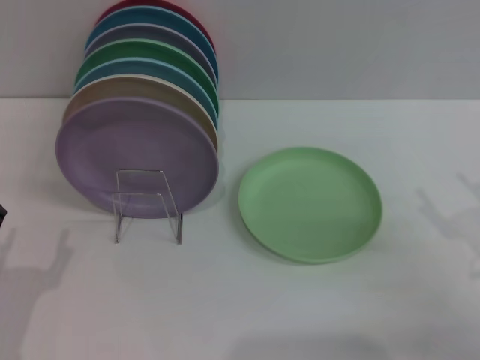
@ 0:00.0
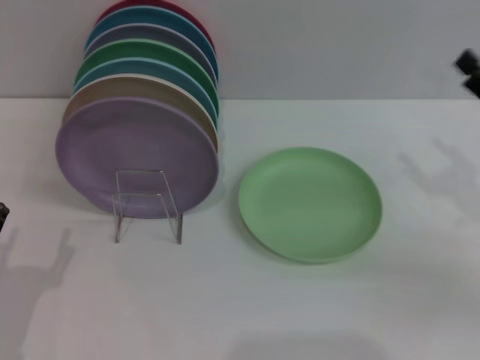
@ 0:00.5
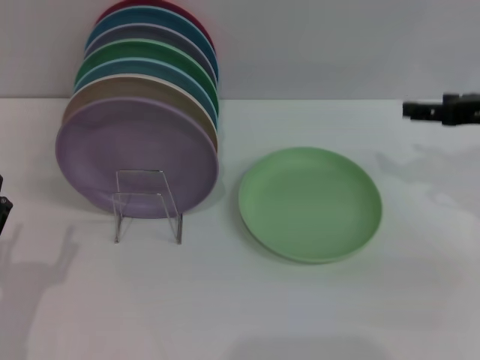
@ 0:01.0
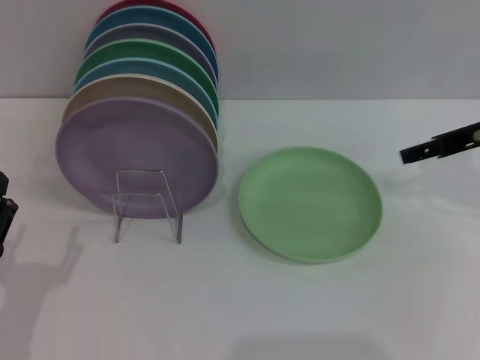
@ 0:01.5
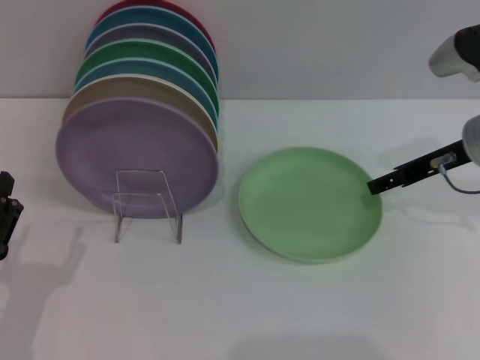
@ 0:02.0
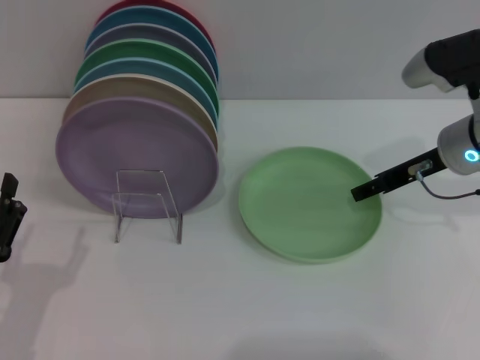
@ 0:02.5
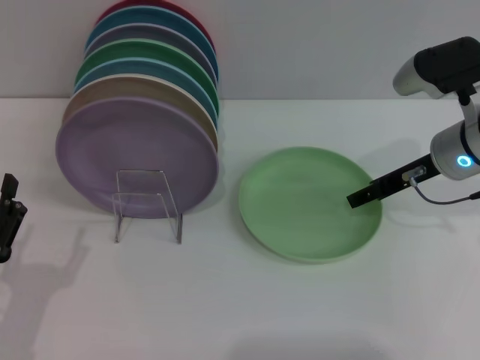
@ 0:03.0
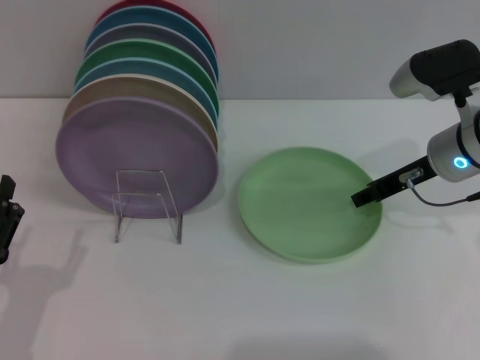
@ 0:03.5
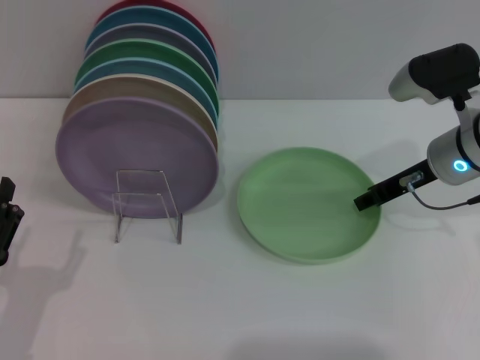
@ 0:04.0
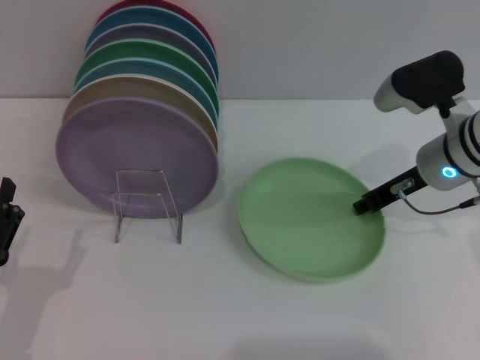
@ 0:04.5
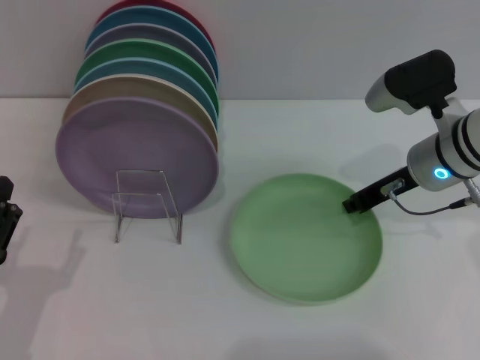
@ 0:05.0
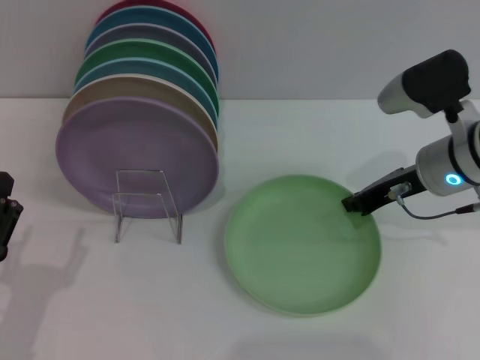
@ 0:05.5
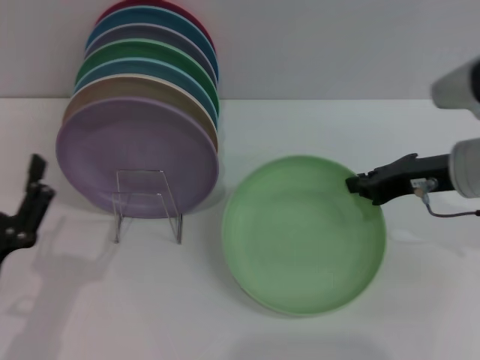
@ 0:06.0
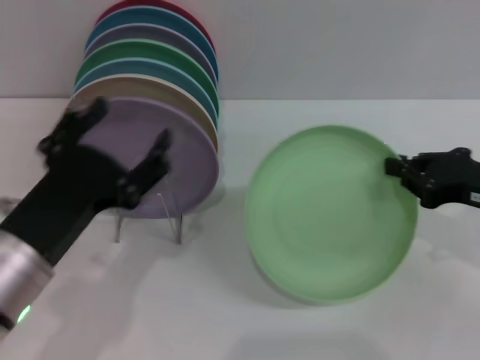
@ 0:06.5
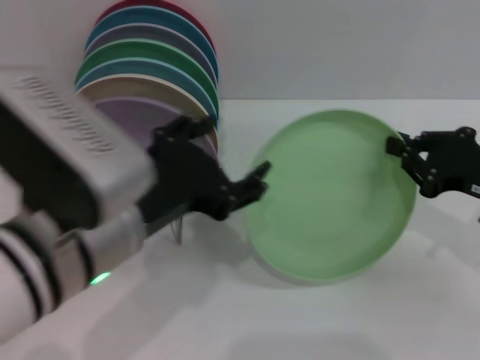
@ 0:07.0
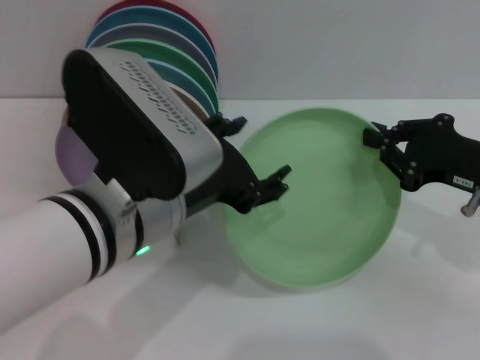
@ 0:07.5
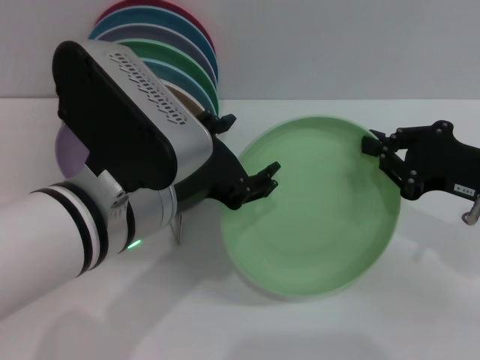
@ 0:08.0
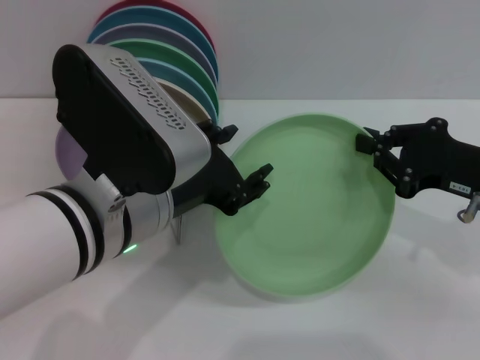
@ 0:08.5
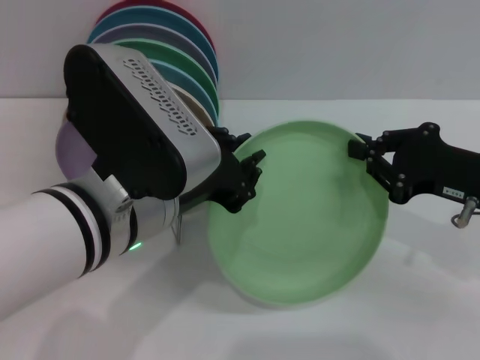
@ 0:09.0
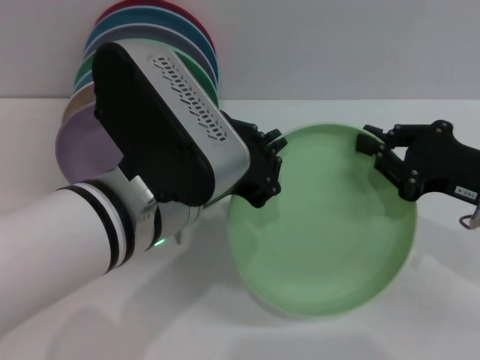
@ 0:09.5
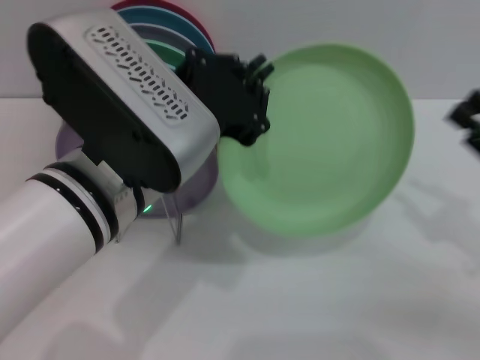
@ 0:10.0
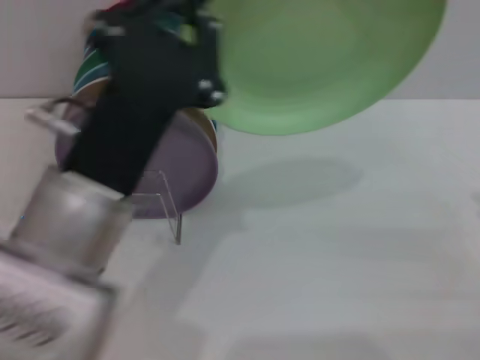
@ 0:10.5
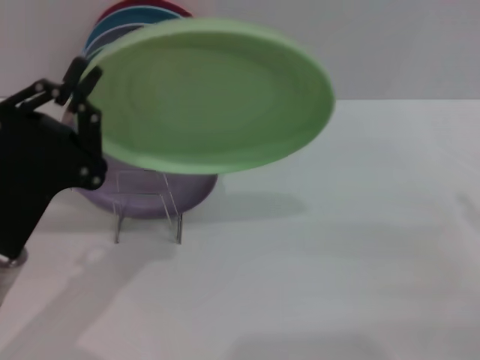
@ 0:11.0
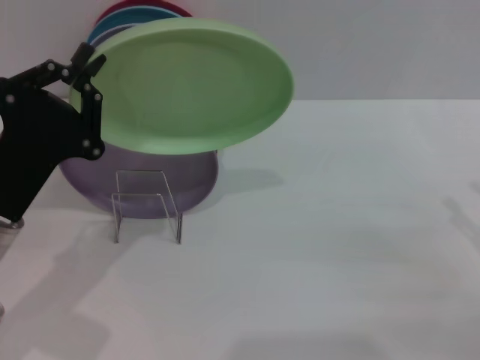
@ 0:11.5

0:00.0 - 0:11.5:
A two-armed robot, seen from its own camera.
Task of the whole recording: Grip the plate with one hand, pass it to the other, then set it on the shelf.
Step, 0:00.0 - 0:06.0: Pick up the plate with the right gripper.
Step, 0:06.5 - 0:09.5: Pass the plate from the right gripper to the left gripper.
0:00.0 - 0:02.0: The right gripper shifts roughly 20 cm forward and upward.
0:02.0 - 0:04.0: The right gripper closes up.
0:04.0 - 0:06.0: The right gripper travels backward by approximately 5 cm, and closes up.
0:06.0 - 0:07.5: The right gripper shifts by approximately 5 cm. The left gripper moves to the right, upward and forward, approximately 20 cm.
0:07.5 - 0:09.5: The left gripper closes.
0:09.5 - 0:11.5: The right gripper shifts about 10 cm to the right and backward, and opens up; the left gripper moves to the left and downward, some 15 cm.

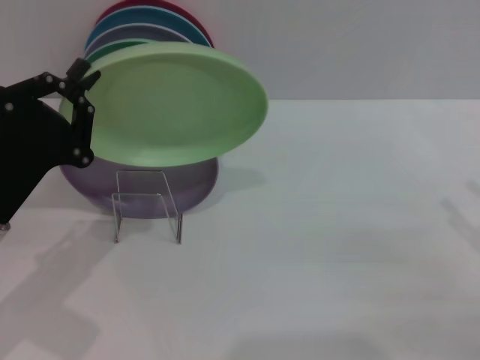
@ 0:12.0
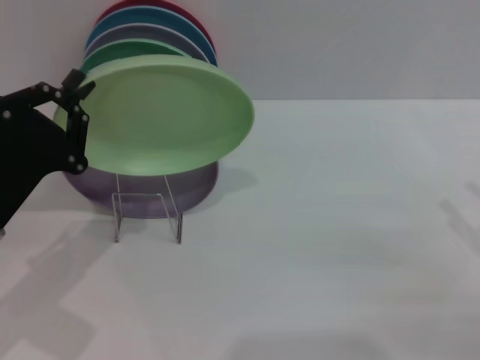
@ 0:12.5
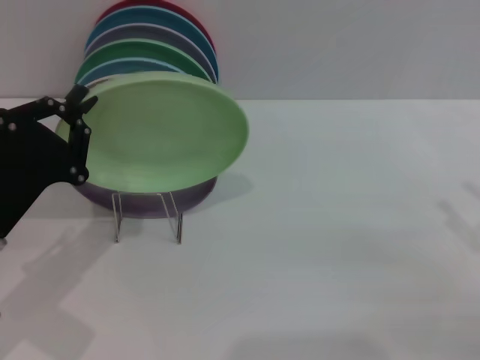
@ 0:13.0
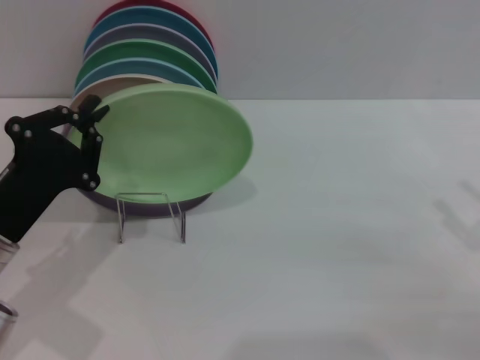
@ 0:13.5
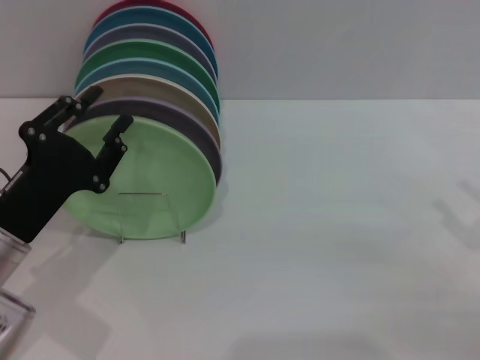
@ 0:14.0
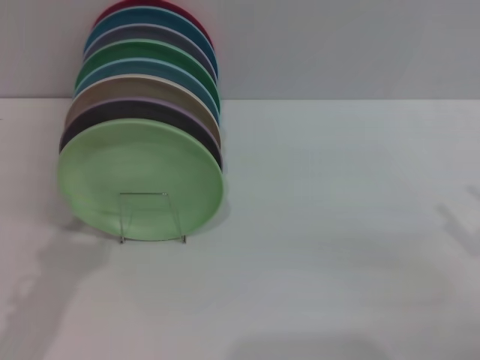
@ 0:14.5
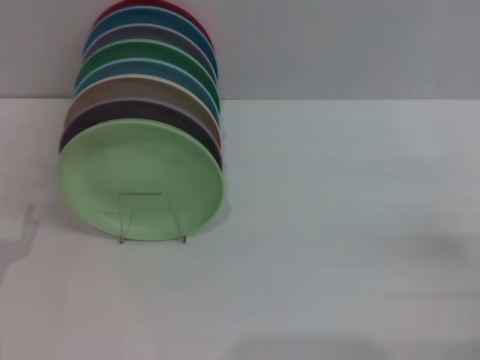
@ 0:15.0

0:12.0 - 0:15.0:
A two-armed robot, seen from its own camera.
Task of the whole recording: Grip the plate with one hand, pass it to the other, then set it on the shelf.
Step, 0:12.0 - 0:14.0: Place the plate on the shelf with the left gripper.
0:12.0 - 0:13.5: The grippers stay close to where they were, moving slightly.
0:13.5 - 0:15.0: The left gripper moves backward and to the left, some 10 cm, and opens up. The right gripper moves some 5 cm.

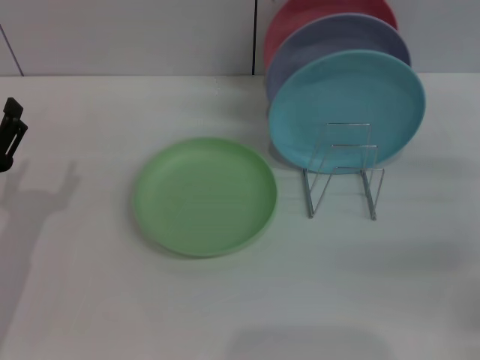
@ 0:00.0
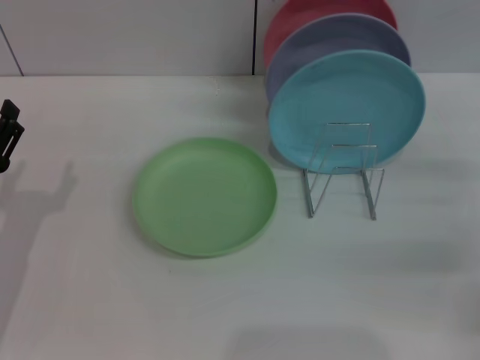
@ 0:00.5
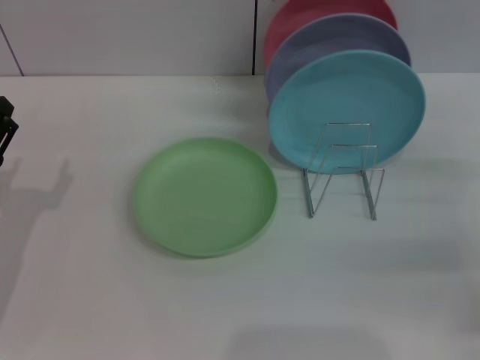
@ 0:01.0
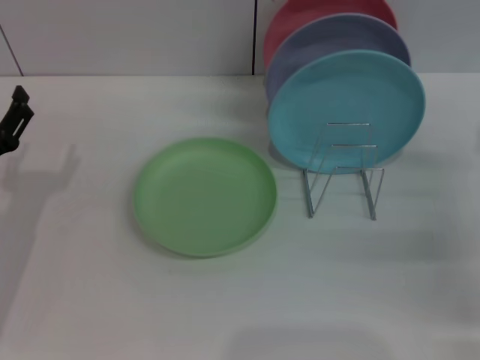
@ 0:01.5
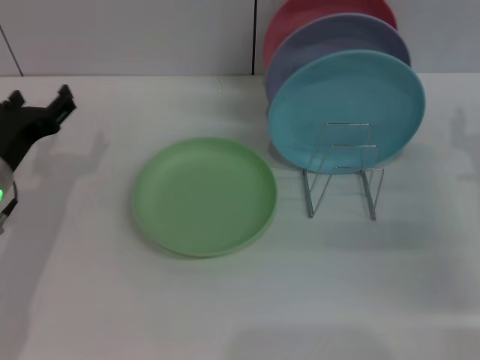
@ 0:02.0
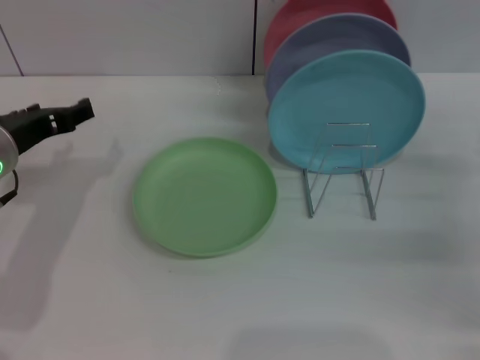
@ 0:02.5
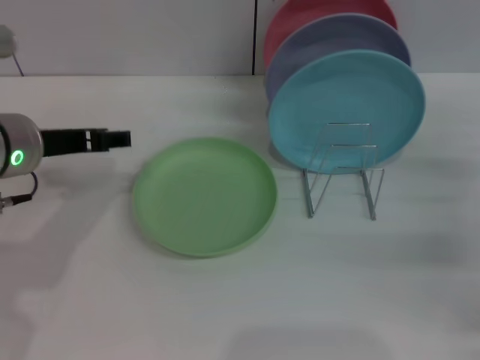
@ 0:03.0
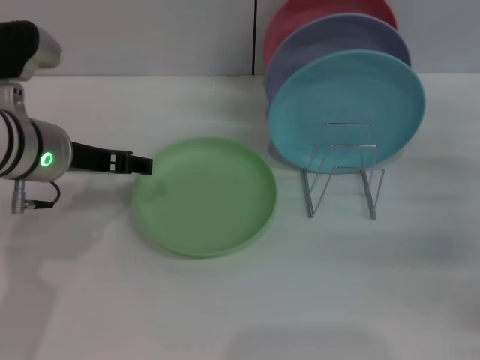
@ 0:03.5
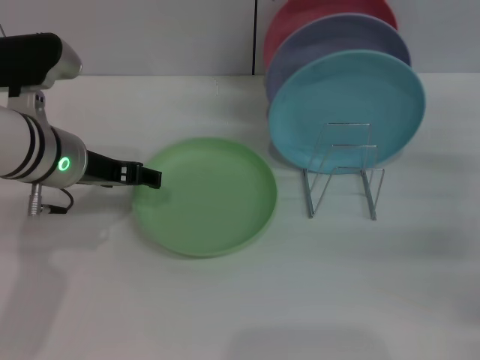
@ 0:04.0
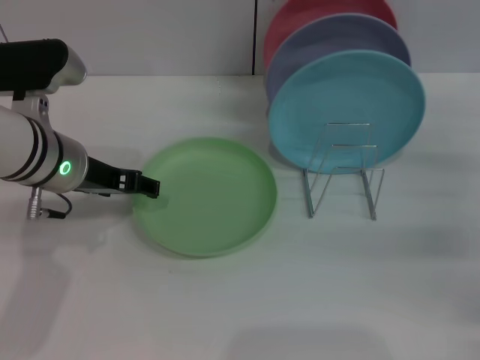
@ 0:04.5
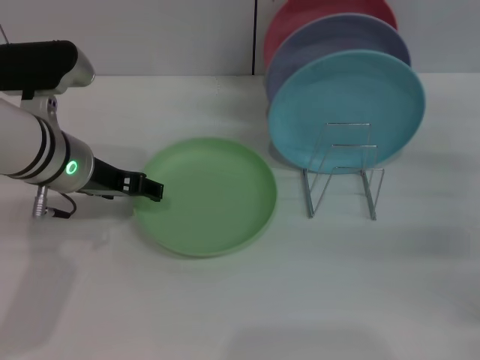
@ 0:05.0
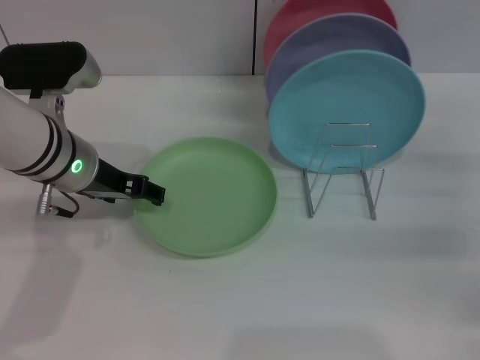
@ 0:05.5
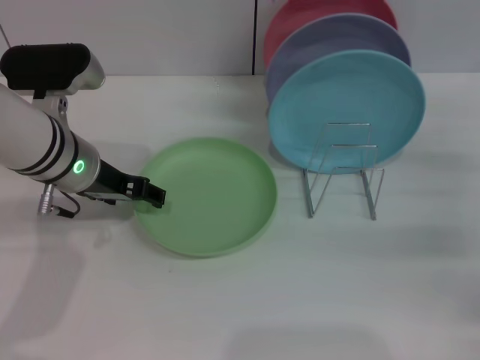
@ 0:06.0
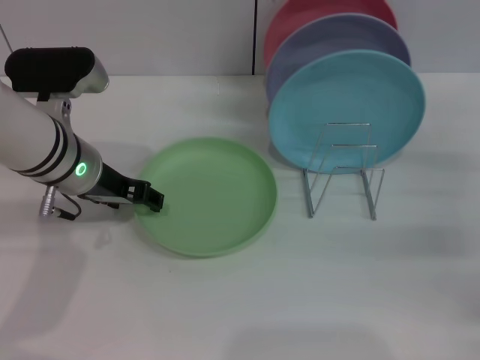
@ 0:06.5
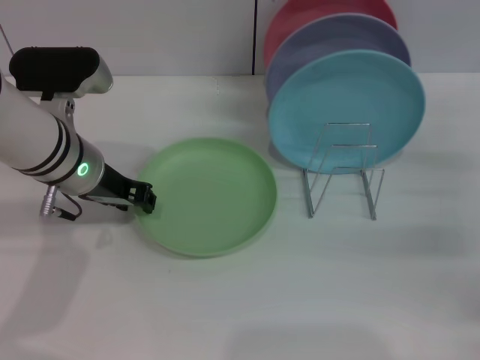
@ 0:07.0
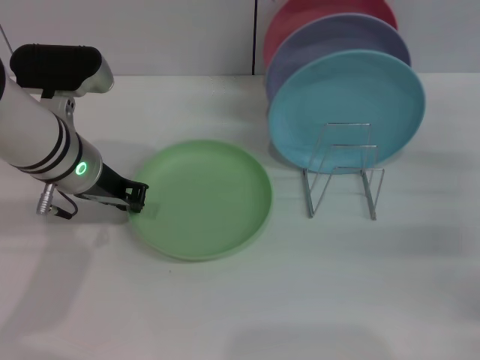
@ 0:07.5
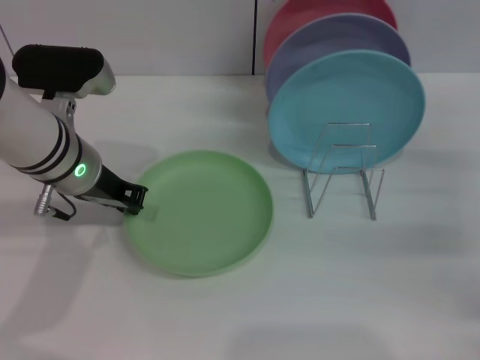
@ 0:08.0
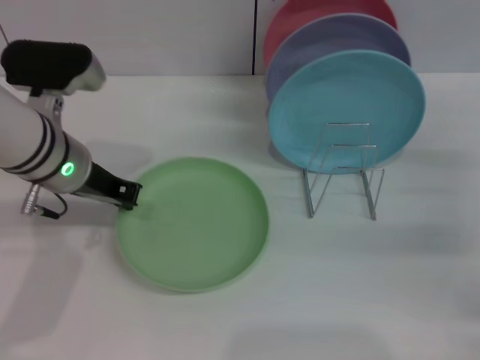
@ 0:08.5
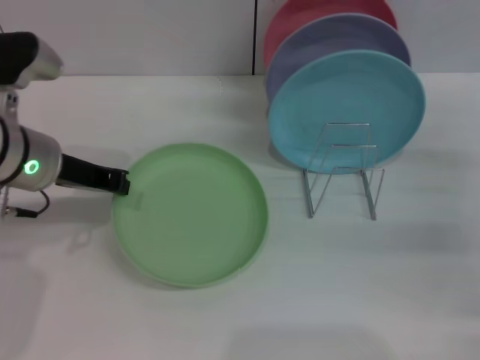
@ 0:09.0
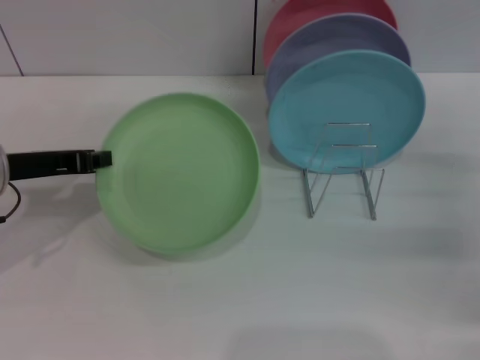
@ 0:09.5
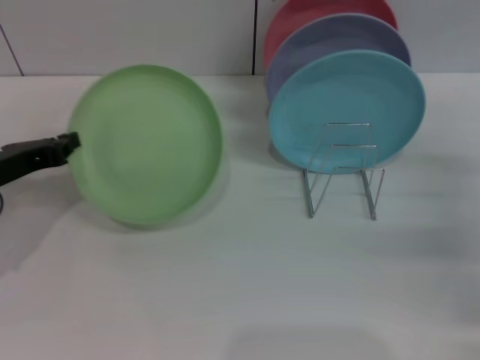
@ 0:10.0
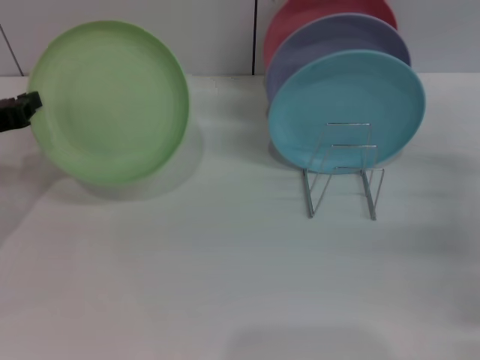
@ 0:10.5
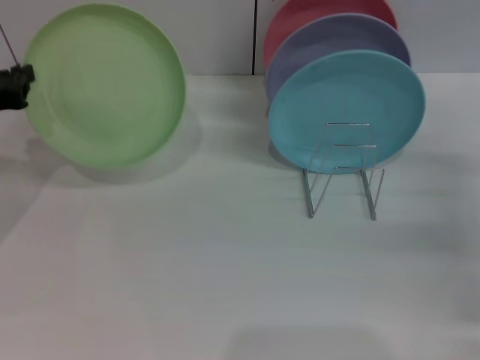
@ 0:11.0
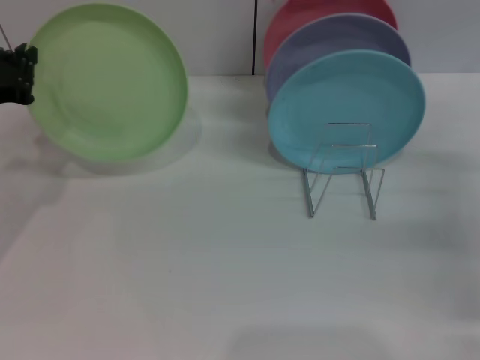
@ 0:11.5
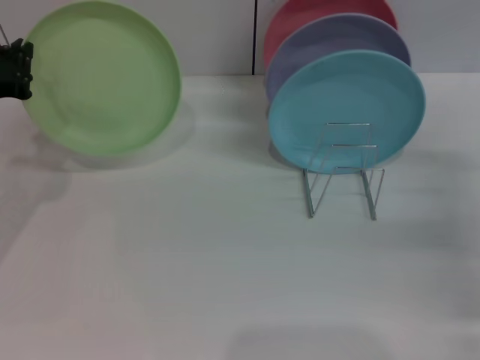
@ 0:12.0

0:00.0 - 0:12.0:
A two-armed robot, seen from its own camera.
Task of the whole recording: Grip the plate with one hand, pass it to the other, then set it on the shelf.
Step, 0:00.0 - 0:09.5: Pick up the plate with the left gripper.
0:00.0 - 0:02.0: The left gripper shifts approximately 10 cm forward.
0:02.0 - 0:04.0: The left gripper moves to the right and upward, approximately 10 cm.
0:04.0 - 0:06.0: The grippers stay close to where they were, moving slightly.
0:06.0 - 0:08.0: The left gripper closes its fingers.
0:08.0 - 0:10.0: The left gripper moves to the left and backward, some 15 cm.
0:10.0 - 0:12.0: The left gripper shifts by about 5 cm.
